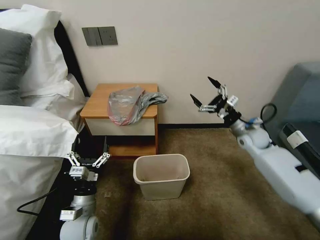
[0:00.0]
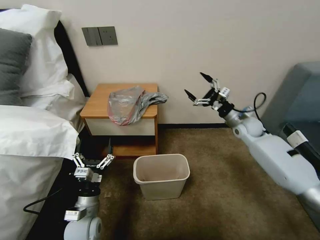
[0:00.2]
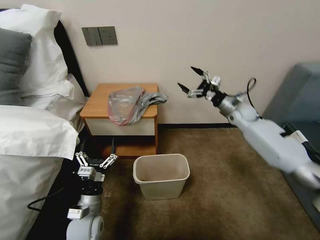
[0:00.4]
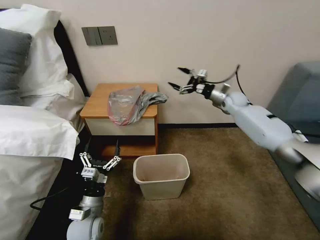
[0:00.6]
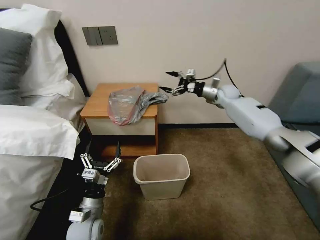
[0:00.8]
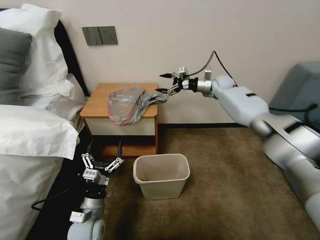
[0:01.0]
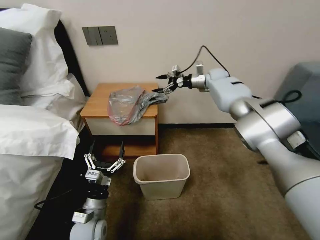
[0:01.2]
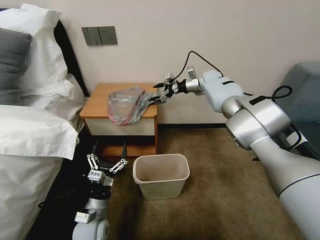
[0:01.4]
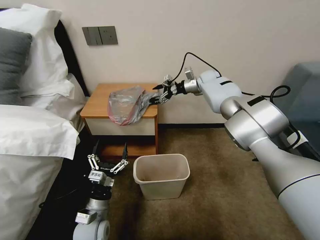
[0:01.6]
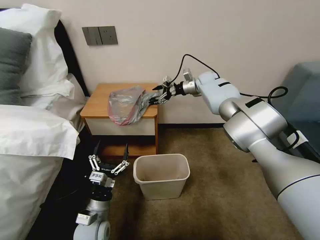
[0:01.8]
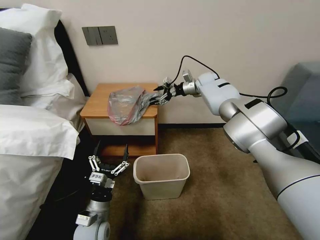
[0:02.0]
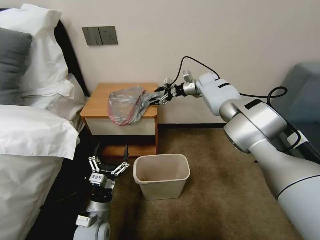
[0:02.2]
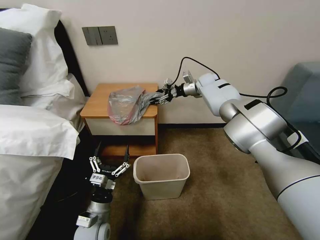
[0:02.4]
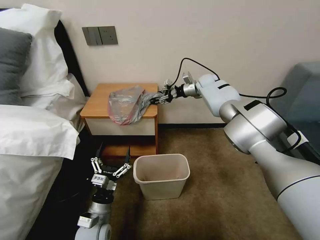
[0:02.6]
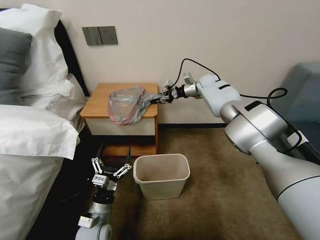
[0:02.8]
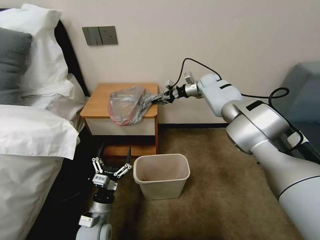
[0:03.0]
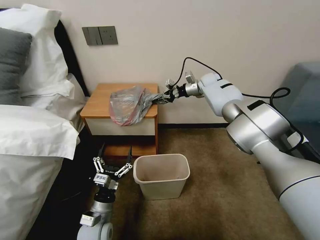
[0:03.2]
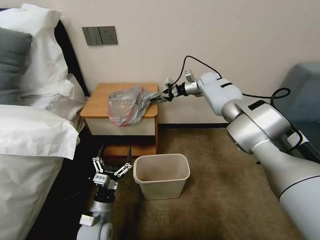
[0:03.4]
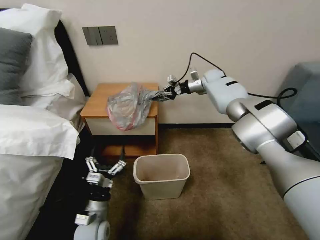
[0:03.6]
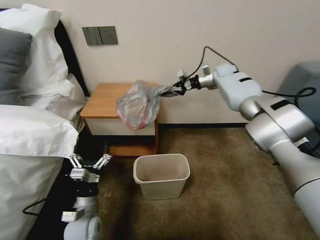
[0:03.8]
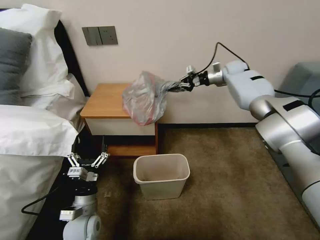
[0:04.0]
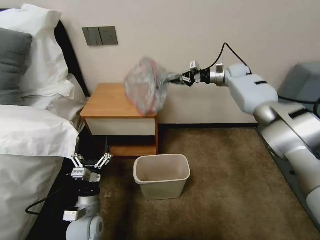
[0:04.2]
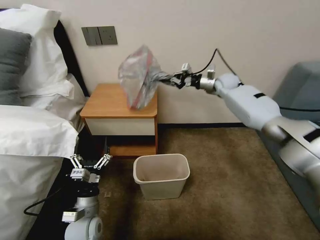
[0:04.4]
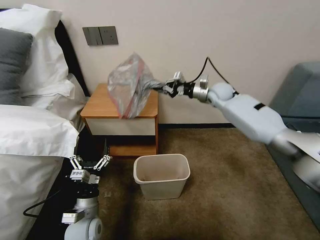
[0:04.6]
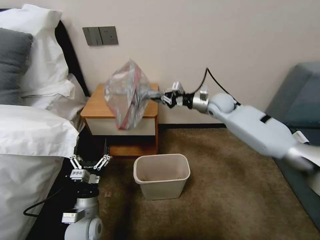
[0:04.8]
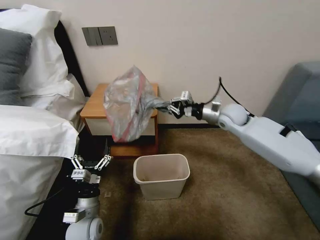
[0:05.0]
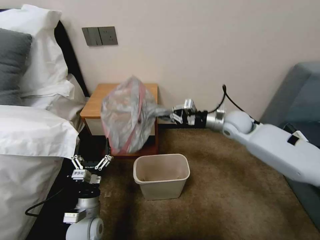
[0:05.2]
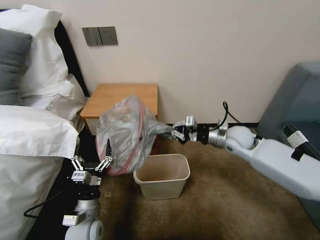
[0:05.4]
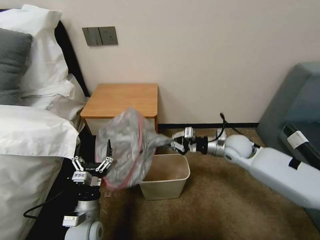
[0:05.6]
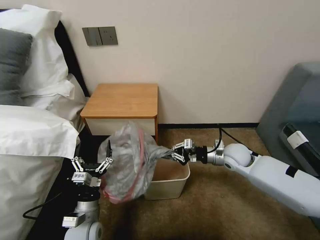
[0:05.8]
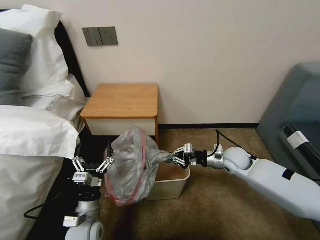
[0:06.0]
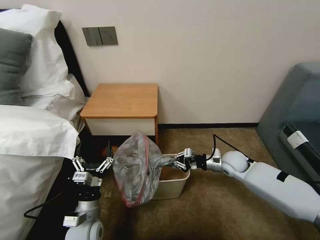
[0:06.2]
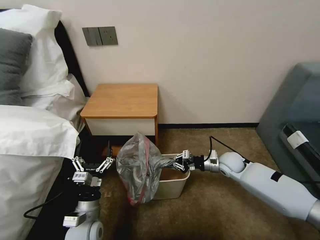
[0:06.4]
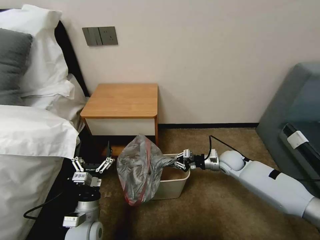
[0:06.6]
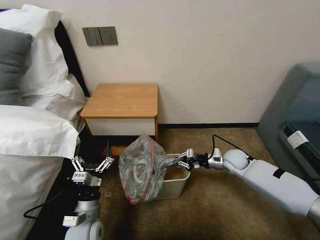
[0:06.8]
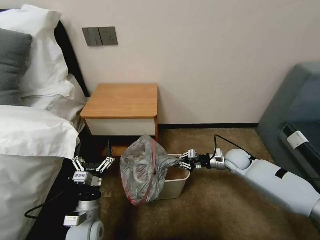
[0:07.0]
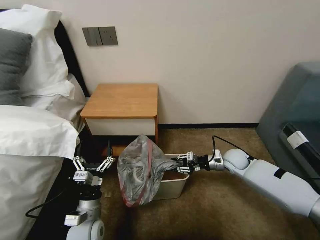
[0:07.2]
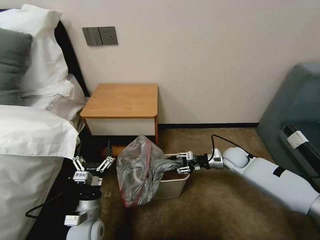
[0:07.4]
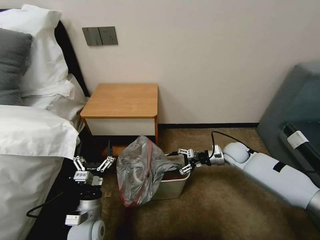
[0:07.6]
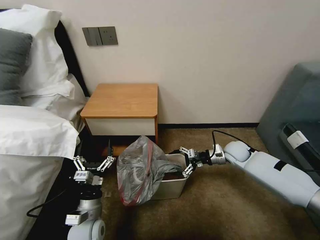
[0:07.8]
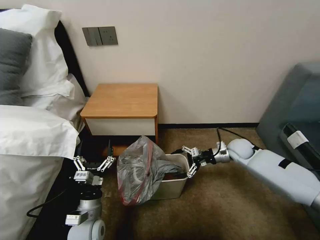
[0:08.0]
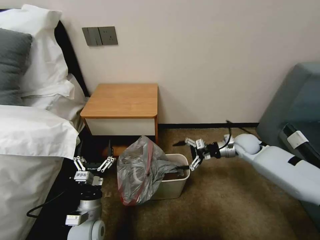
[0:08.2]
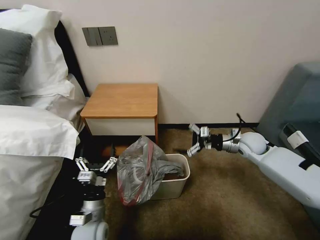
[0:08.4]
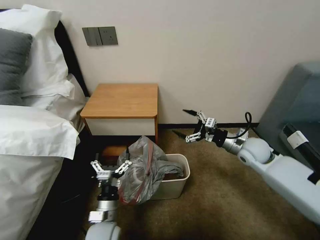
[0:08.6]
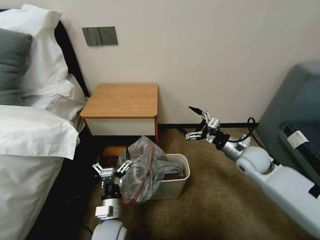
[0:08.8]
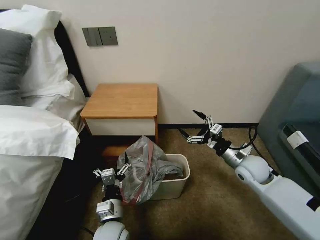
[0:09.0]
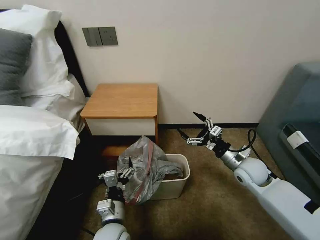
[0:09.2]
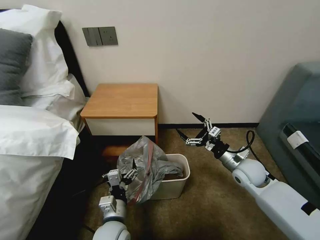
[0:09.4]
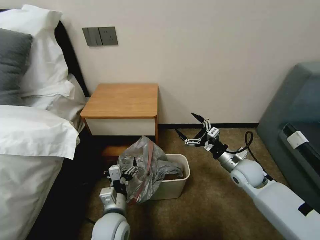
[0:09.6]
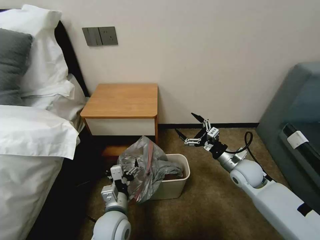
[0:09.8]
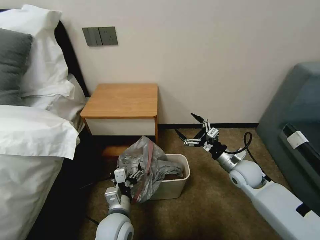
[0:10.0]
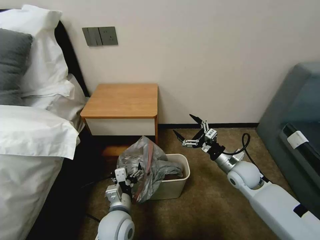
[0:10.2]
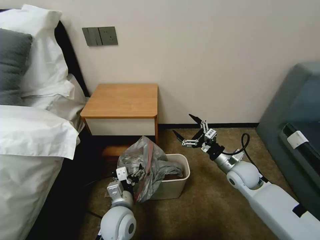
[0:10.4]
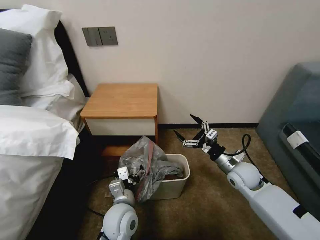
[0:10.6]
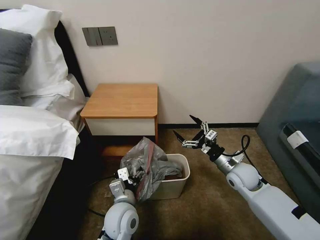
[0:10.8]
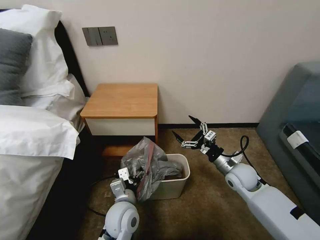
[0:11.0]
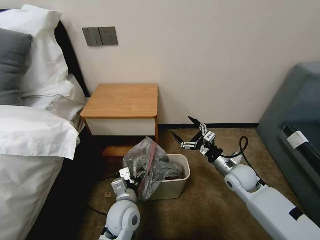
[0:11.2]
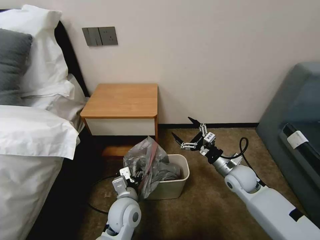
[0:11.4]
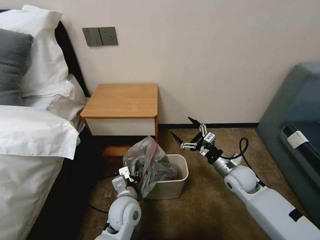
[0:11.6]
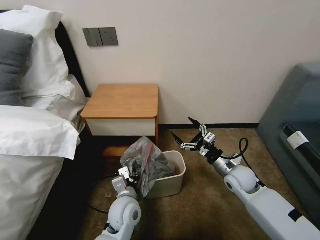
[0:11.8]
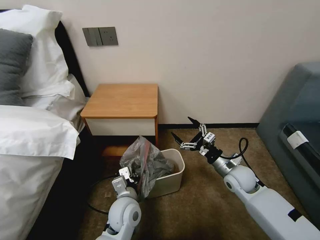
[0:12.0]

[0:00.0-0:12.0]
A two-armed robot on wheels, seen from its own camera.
Task of the whole recording: Pick up the garbage bag from the table and place it over the trash can.
0:00.0 to 0:01.6: The right gripper goes approximately 30 cm forward, to the left and upward.
0:01.6 to 0:03.0: The right gripper closes.
0:03.0 to 0:04.4: The right gripper is displaced to the right by approximately 5 cm.
0:04.4 to 0:06.0: The right gripper is displaced backward and downward by roughly 30 cm.
0:06.0 to 0:07.6: The right gripper ends up about 5 cm from where it was, and opens its fingers.
0:07.6 to 0:09.0: The left gripper goes about 10 cm to the right, while the right gripper moves backward and upward, roughly 10 cm.
0:09.0 to 0:10.4: The left gripper moves some 5 cm.
0:10.4 to 0:12.0: The left gripper closes its fingers.

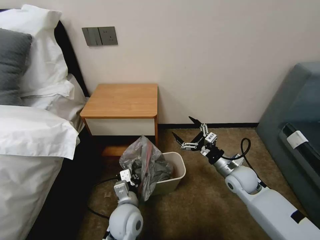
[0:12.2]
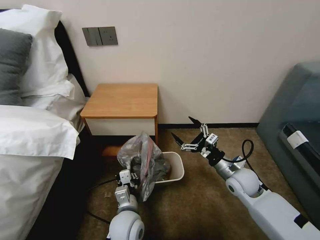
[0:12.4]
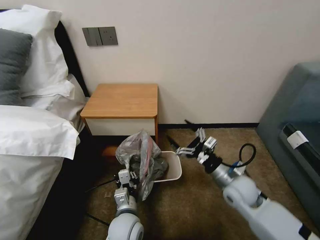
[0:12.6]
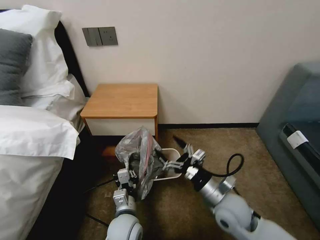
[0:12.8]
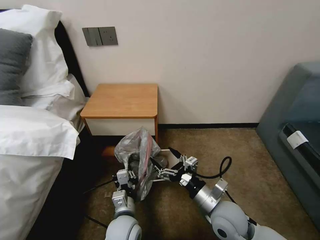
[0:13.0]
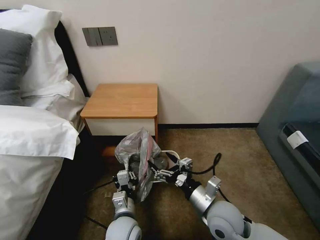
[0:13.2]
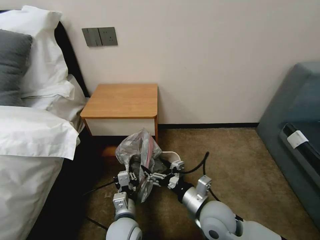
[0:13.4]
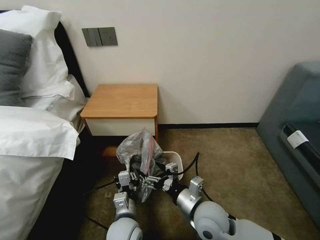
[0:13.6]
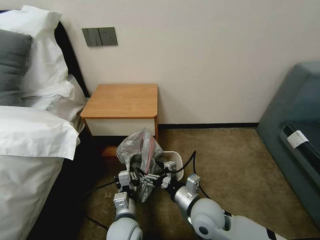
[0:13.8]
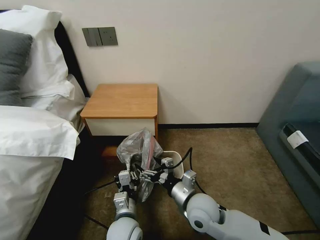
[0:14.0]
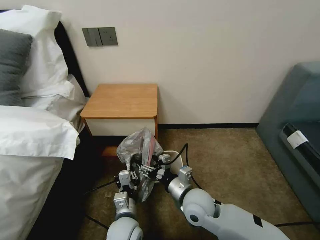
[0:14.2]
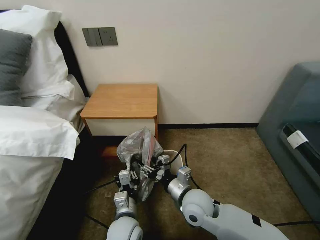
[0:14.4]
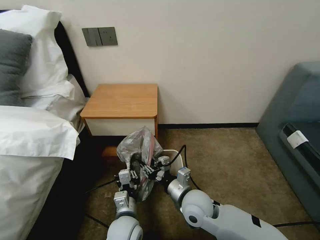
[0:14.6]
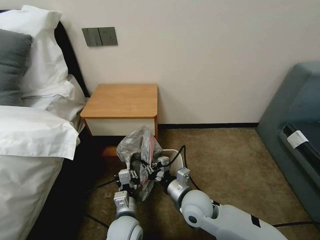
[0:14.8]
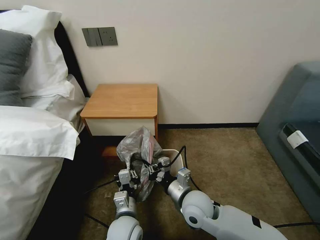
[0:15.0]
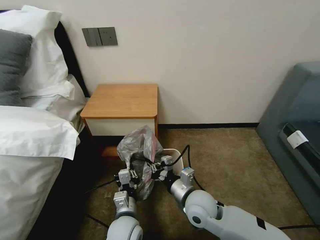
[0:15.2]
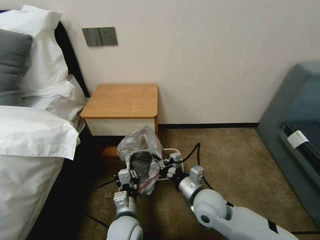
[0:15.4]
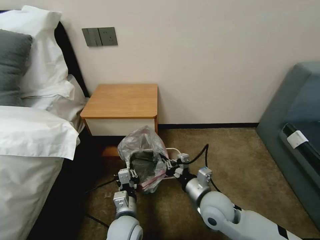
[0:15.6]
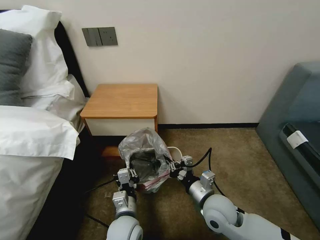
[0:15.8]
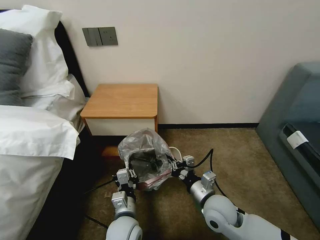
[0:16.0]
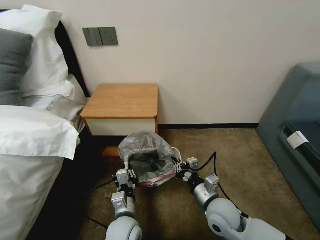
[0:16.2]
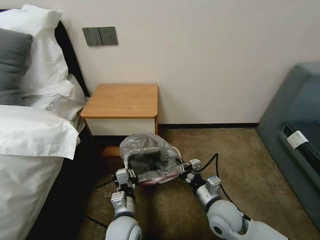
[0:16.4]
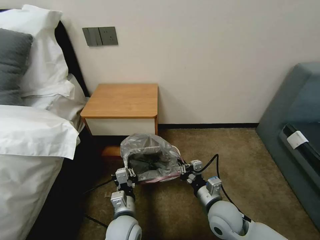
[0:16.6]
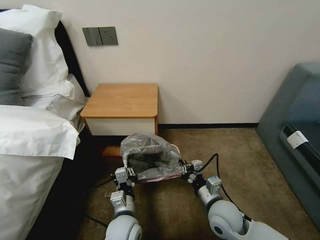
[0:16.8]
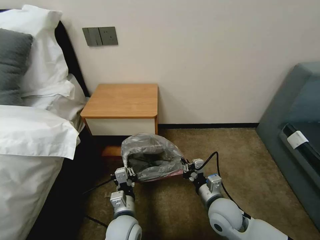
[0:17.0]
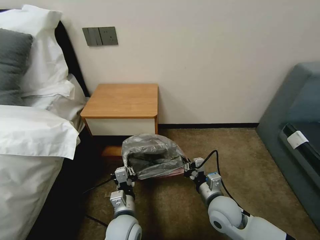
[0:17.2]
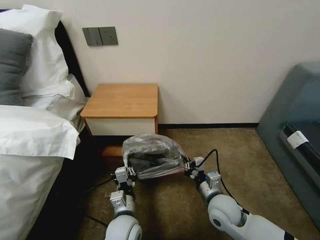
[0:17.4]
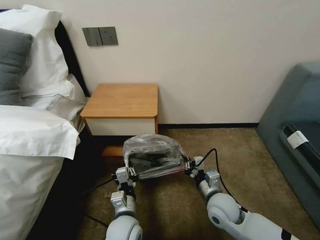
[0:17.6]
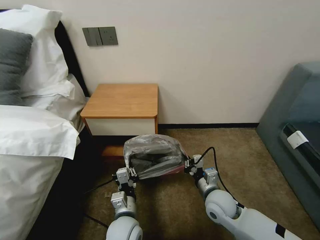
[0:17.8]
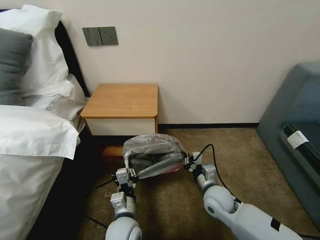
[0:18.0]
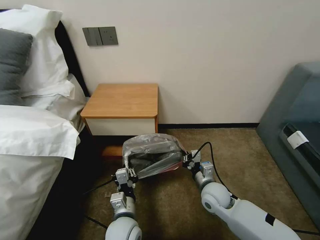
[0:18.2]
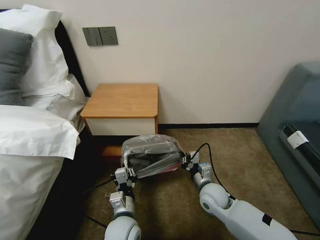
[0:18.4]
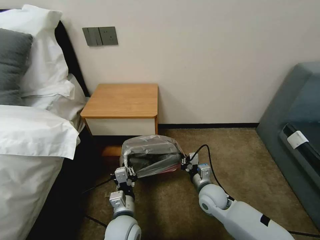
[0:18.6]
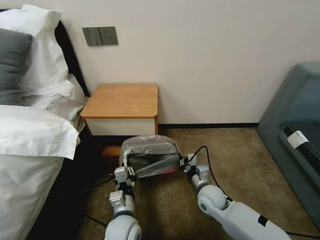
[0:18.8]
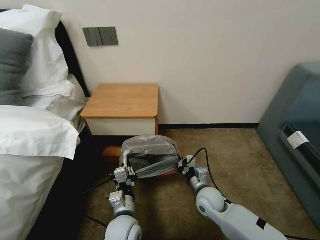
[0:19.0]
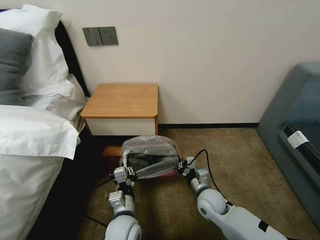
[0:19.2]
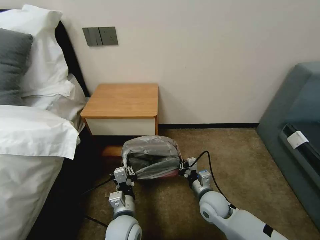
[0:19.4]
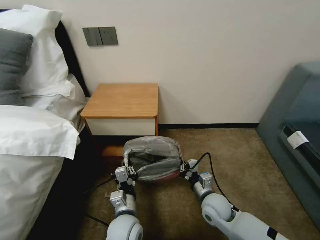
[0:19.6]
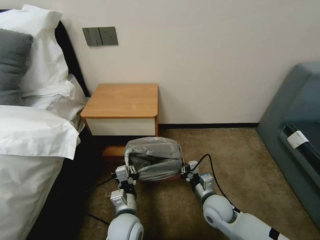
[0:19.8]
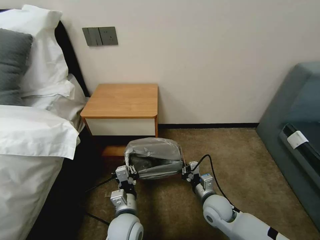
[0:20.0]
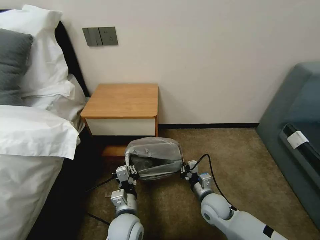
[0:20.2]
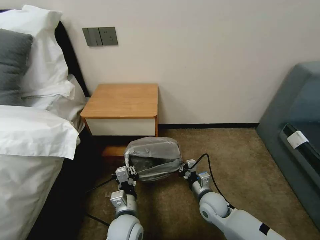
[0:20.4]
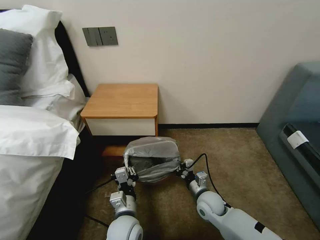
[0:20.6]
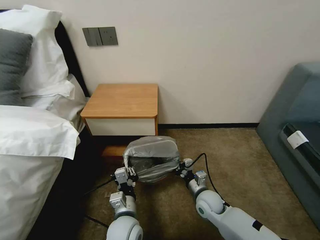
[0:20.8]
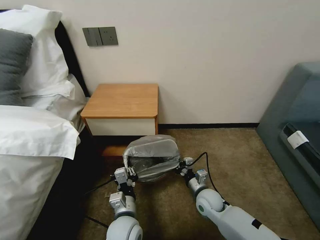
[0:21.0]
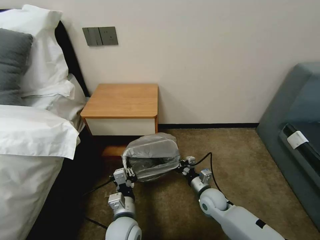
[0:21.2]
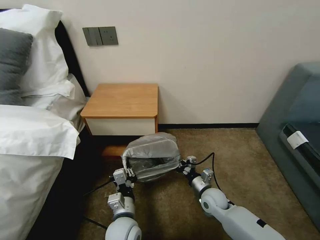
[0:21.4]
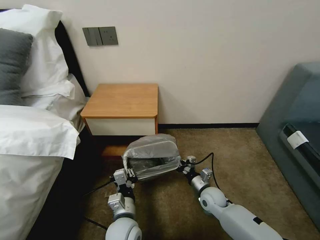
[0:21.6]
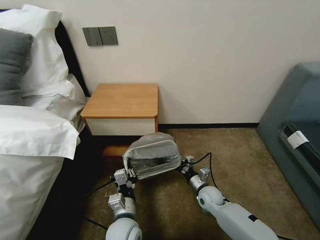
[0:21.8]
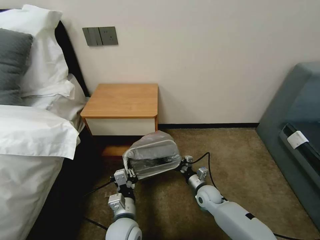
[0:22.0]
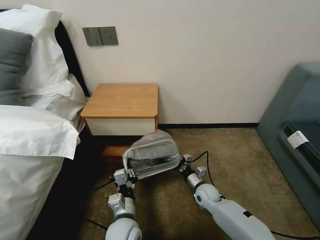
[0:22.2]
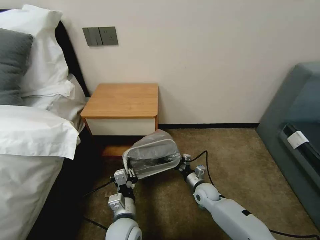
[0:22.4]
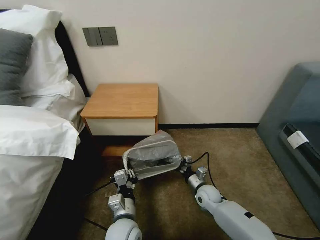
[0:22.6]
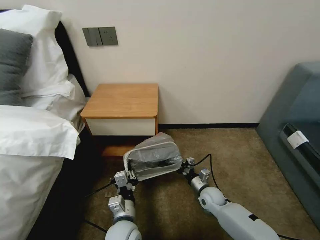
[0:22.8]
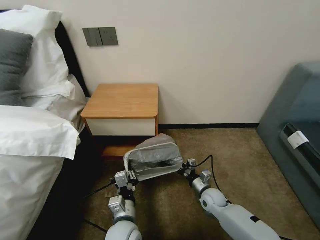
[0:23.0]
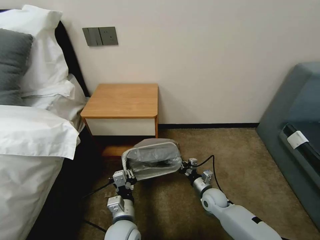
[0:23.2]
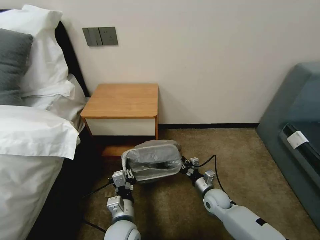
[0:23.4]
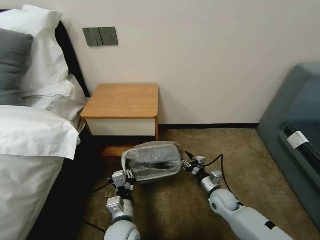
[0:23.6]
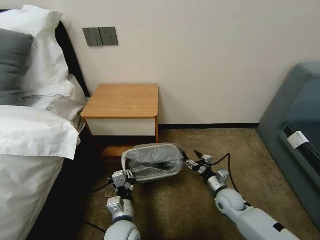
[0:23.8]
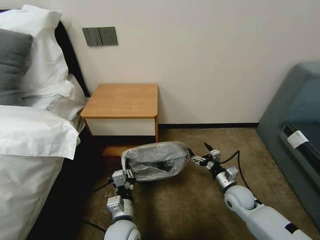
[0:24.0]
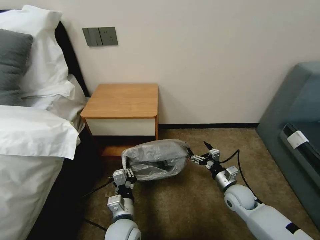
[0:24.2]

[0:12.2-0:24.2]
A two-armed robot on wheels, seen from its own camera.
Task of the whole recording: Pick up the garbage bag from the table and place it over the trash can.
0:12.2 to 0:13.8: The right gripper heads to the left and backward, covering roughly 20 cm.
0:13.8 to 0:15.2: The right gripper closes its fingers.
0:15.2 to 0:16.6: The right gripper goes some 5 cm to the right.
0:16.6 to 0:18.2: The right gripper is displaced forward by roughly 5 cm.
0:18.2 to 0:19.8: The grippers move only a little.
0:19.8 to 0:21.2: The right gripper moves approximately 5 cm.
0:21.2 to 0:22.6: The right gripper moves approximately 5 cm.
0:22.6 to 0:24.2: The right gripper moves to the right and upward, roughly 10 cm, and opens up.
